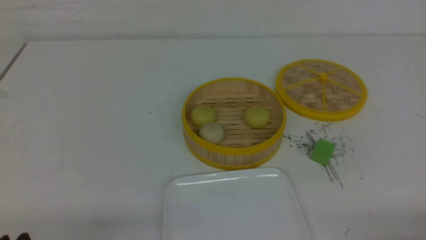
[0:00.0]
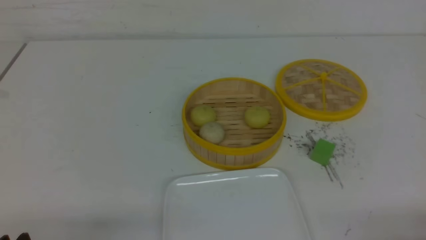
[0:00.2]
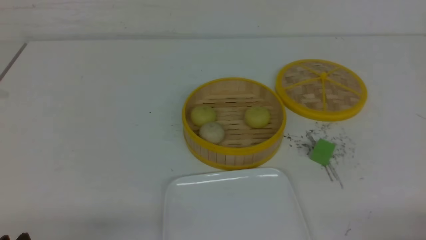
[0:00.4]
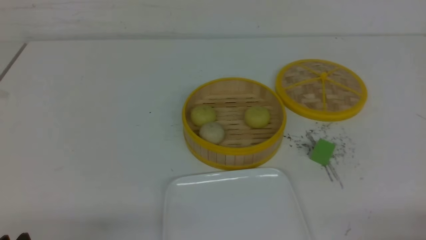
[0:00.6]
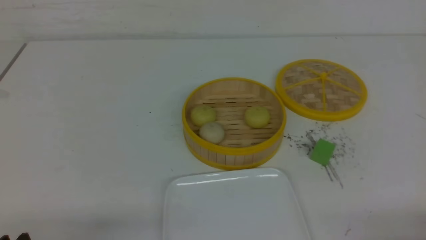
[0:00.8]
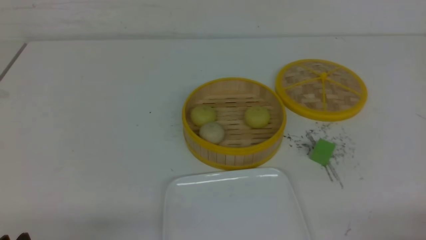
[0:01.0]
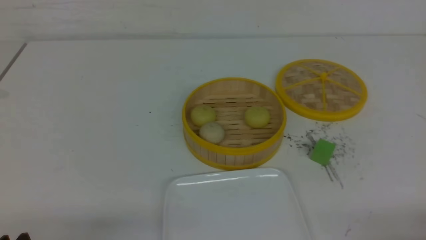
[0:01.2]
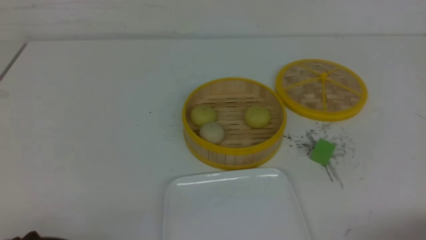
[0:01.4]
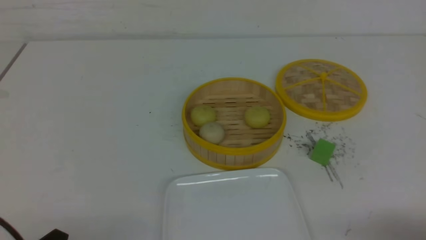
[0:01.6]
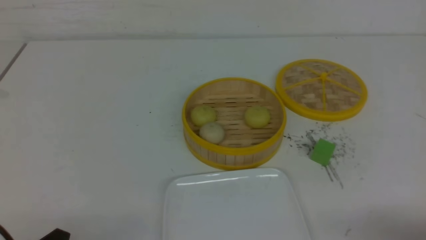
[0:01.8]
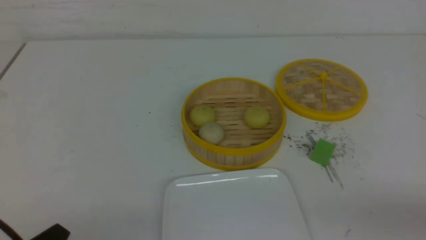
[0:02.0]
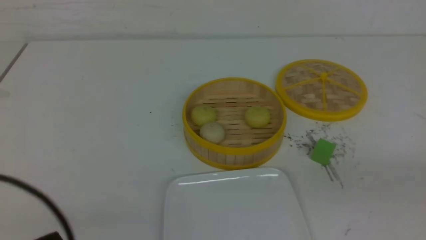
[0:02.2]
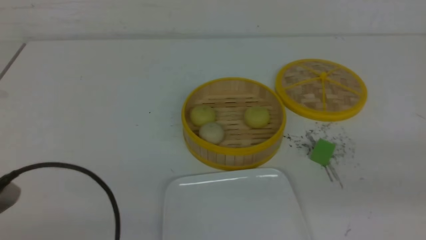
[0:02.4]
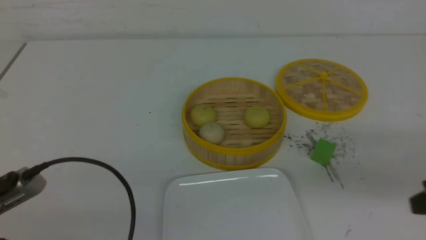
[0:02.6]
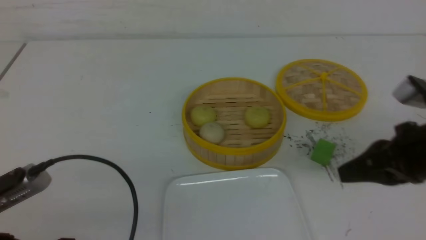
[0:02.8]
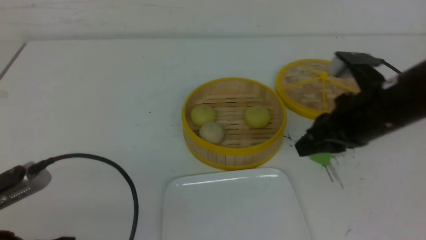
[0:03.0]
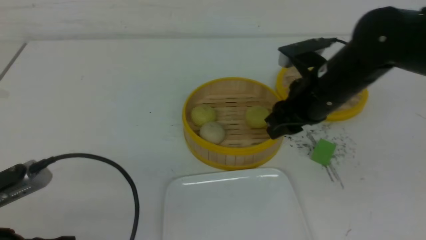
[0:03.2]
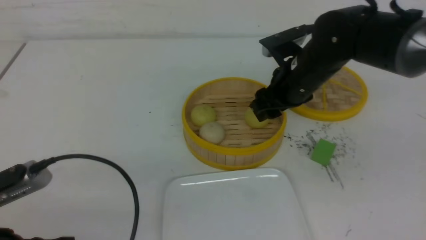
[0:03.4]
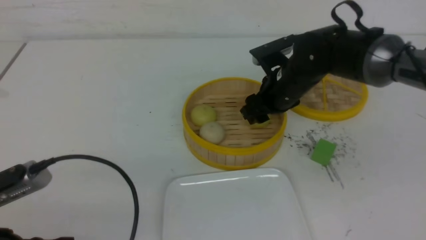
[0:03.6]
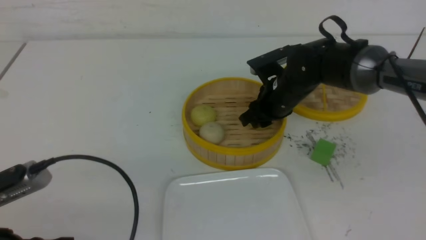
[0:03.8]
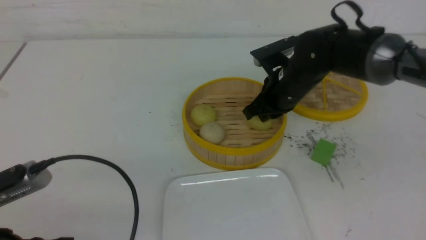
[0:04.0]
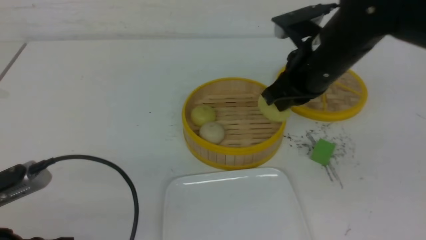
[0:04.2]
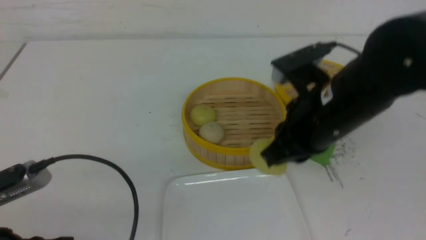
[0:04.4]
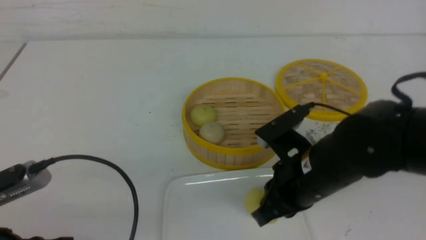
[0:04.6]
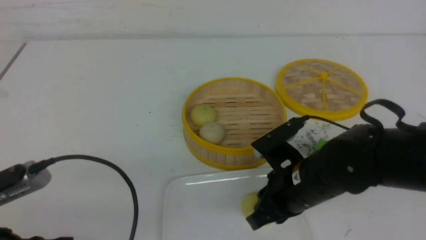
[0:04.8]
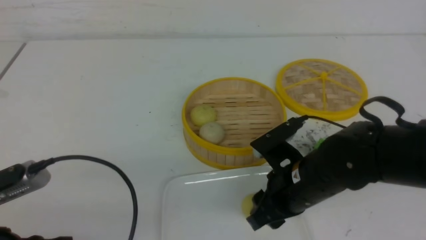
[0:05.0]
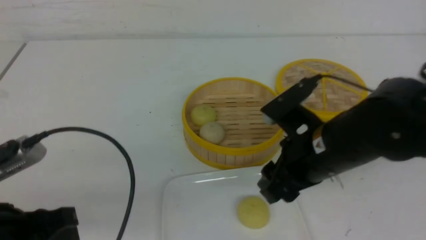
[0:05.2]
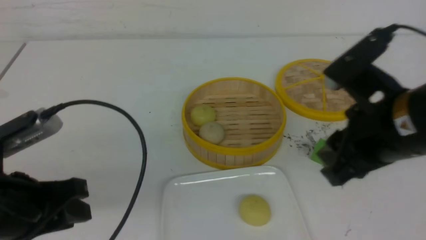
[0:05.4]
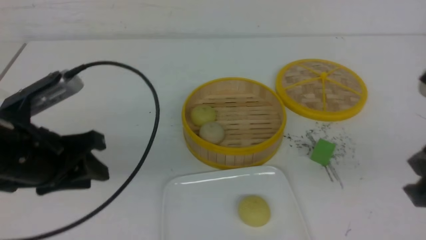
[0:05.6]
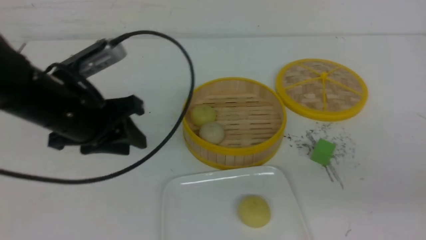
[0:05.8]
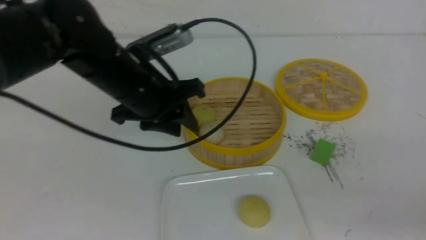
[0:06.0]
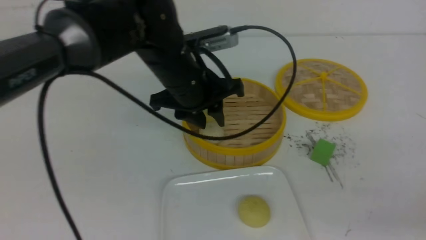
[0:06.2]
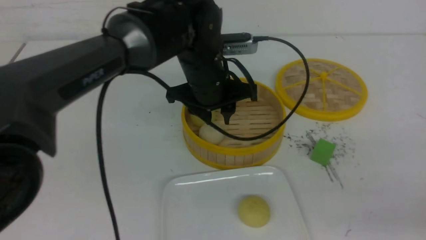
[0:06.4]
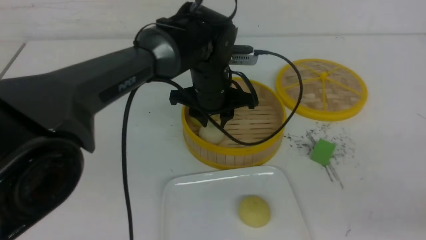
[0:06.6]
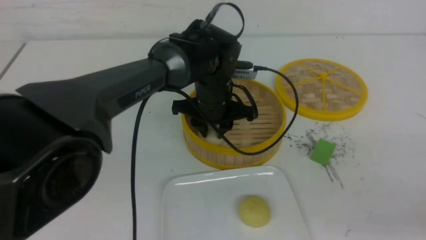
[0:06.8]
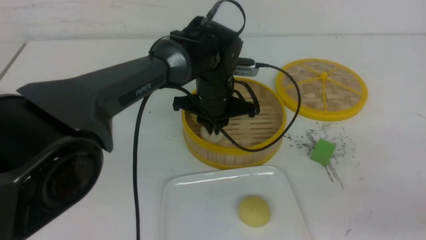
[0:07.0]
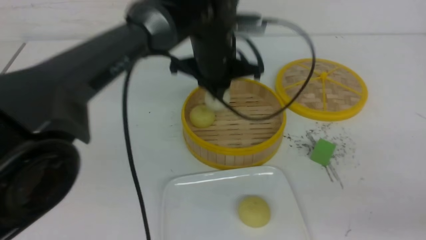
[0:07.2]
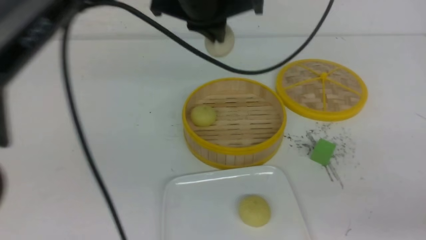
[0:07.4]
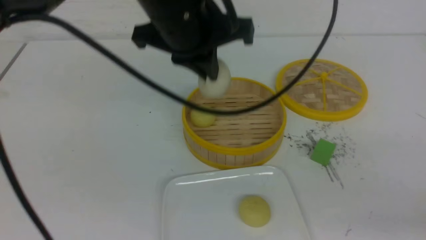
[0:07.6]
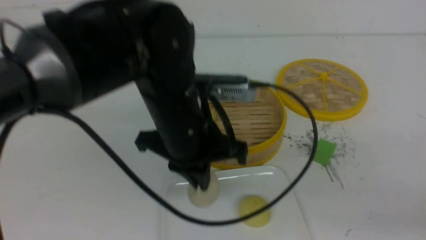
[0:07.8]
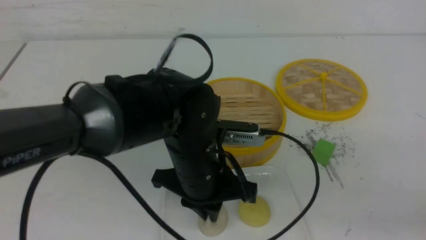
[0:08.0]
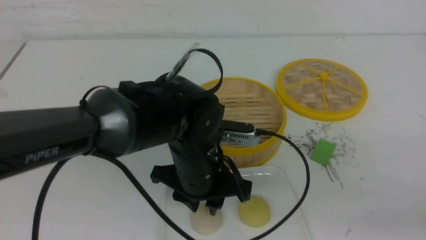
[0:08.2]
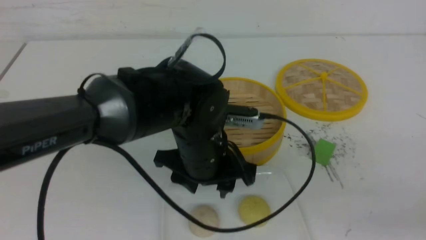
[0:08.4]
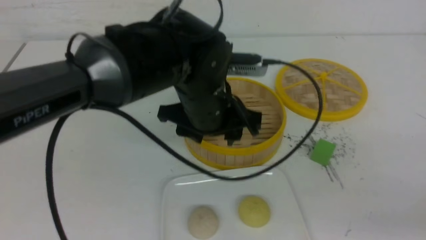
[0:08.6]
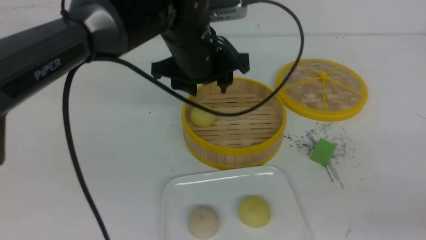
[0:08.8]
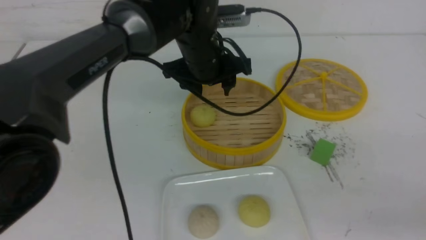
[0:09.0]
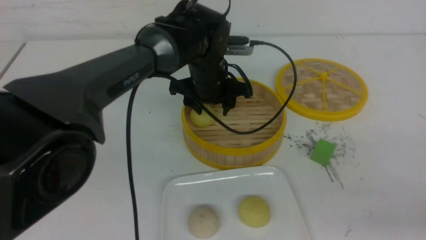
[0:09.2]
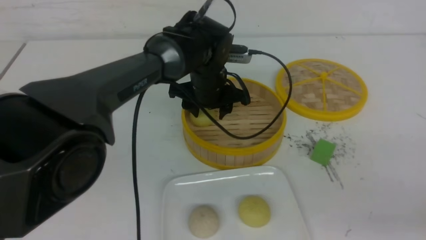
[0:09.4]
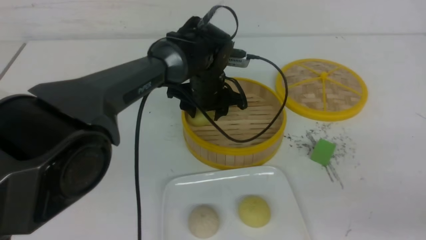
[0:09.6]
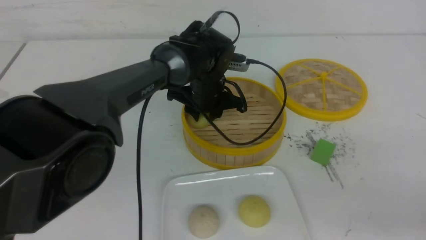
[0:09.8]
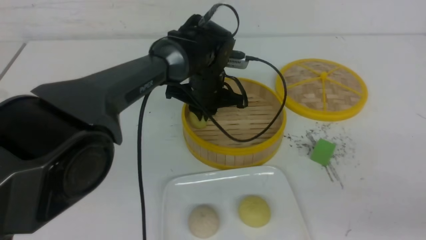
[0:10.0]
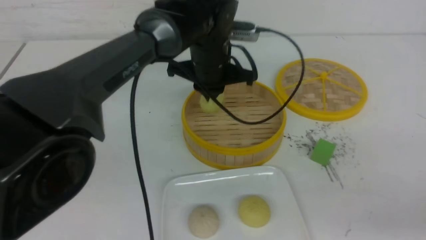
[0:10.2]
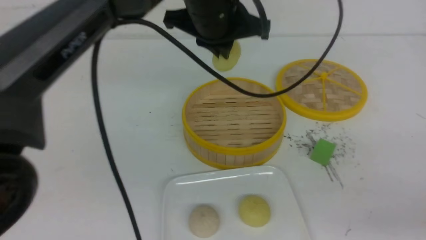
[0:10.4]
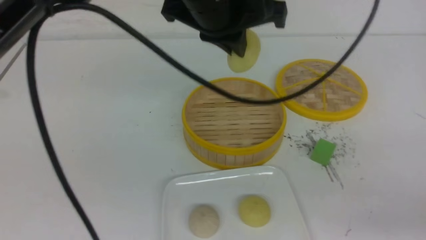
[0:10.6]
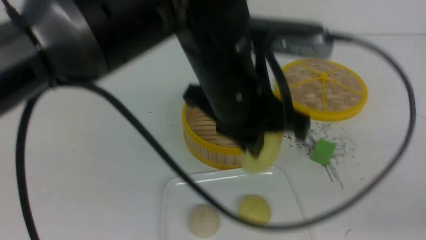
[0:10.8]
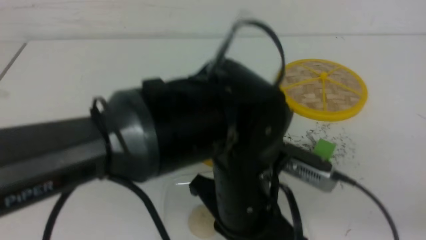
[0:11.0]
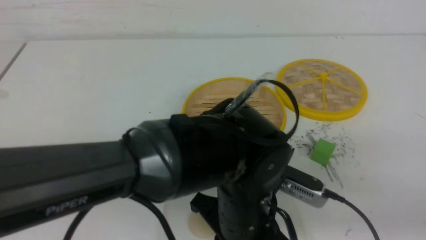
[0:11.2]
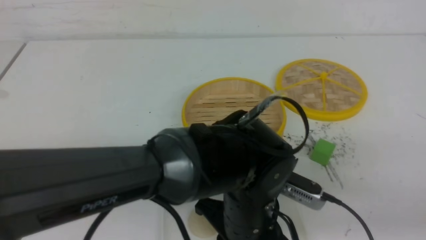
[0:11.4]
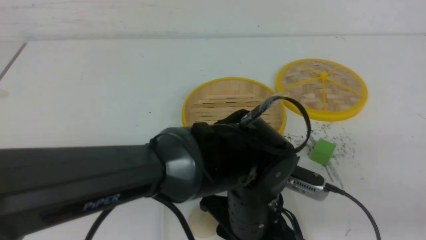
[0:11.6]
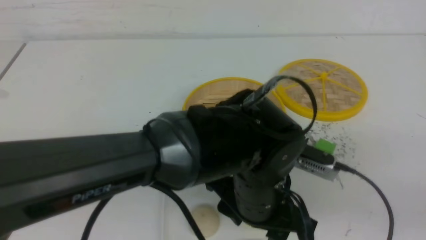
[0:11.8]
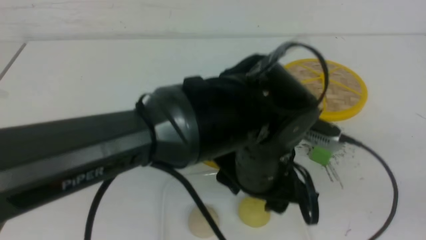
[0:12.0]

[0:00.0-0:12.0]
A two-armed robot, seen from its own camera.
Step, 0:00.0 to 0:03.8: use the right arm to grab the steamed stuffed bun that is closest to it.
Step, 0:04.0 to 0:05.0: use the right arm to put the steamed stuffed bun into the plate.
Step, 0:05.2 to 0:07.0: use the left arm to grab the steamed stuffed bun that is closest to it.
Step, 0:07.2 to 0:08.2: use the left arm to put the steamed stuffed bun into the plate.
Step, 0:08.4 to 0:09.6: use the left arm to grab the steamed stuffed bun that is closest to it.
Step, 0:09.8 to 0:11.8: use the left arm to put the steamed stuffed bun into the plate.
0:01.6 to 0:03.0: The left gripper heads upward, covering some 5 cm, and closes up; the right gripper heads forward, to the left and upward, covering some 30 cm, and closes, then reopens.
0:03.0 to 0:04.4: The right gripper goes some 5 cm to the left, moves roughly 10 cm forward and comes back, and closes its fingers.
0:04.4 to 0:06.0: The left gripper is displaced forward and to the right by about 25 cm, and opens its fingers. The right gripper is displaced backward and to the right by approximately 25 cm, and opens, then closes again.
0:06.0 to 0:07.6: The left gripper shifts some 10 cm to the right and upward, and closes its fingers.
0:07.6 to 0:09.0: The left gripper moves forward and downward, approximately 10 cm, and opens up.
0:09.0 to 0:10.4: The left gripper travels upward by about 10 cm, and closes its fingers.
0:10.4 to 0:12.0: The right gripper goes some 10 cm upward, backward and to the right. The left gripper shifts about 15 cm backward and downward, and opens its fingers.

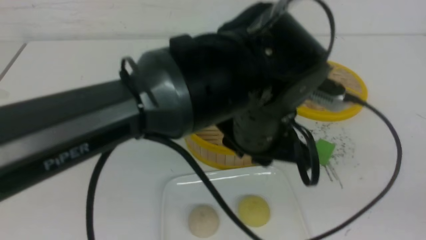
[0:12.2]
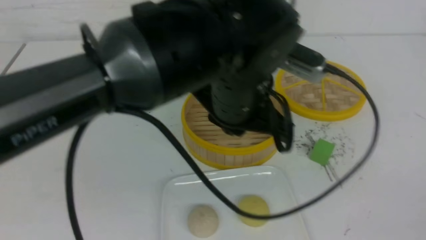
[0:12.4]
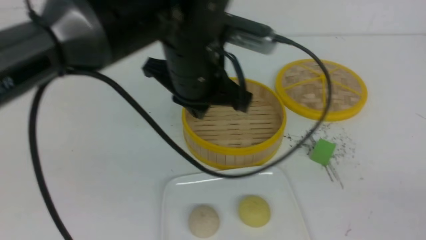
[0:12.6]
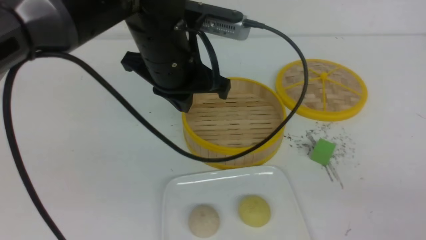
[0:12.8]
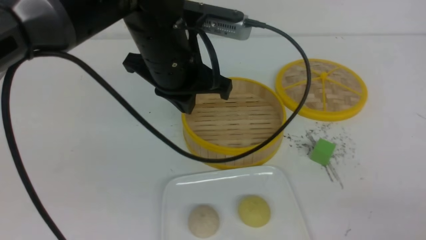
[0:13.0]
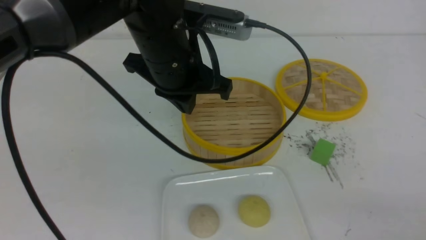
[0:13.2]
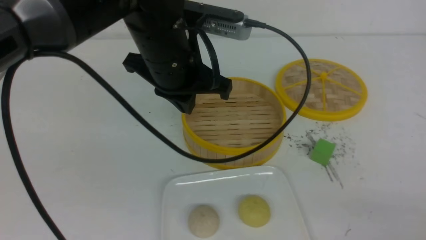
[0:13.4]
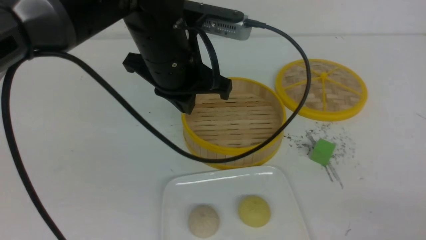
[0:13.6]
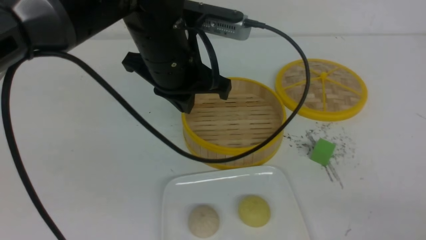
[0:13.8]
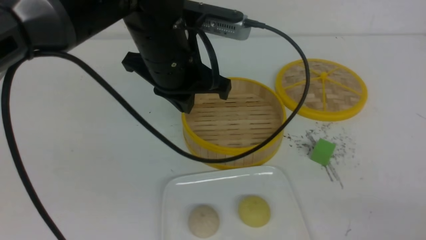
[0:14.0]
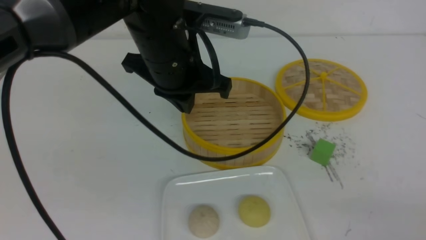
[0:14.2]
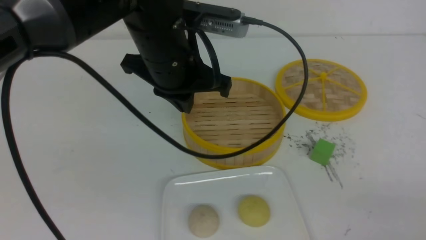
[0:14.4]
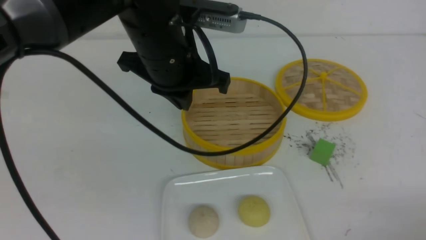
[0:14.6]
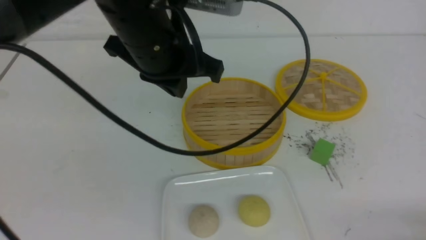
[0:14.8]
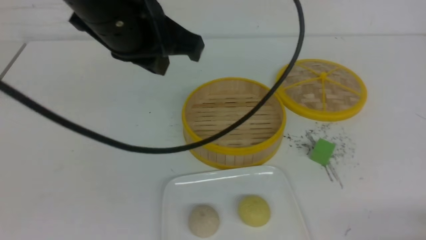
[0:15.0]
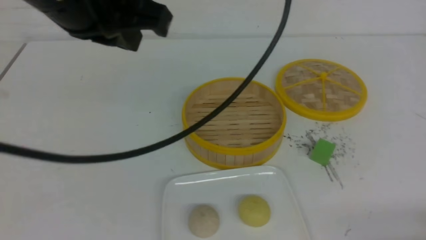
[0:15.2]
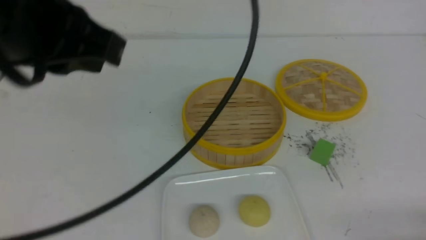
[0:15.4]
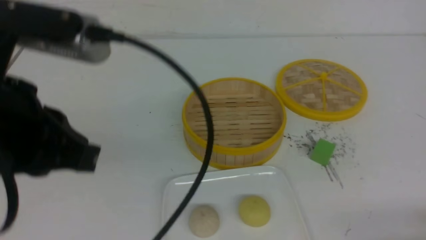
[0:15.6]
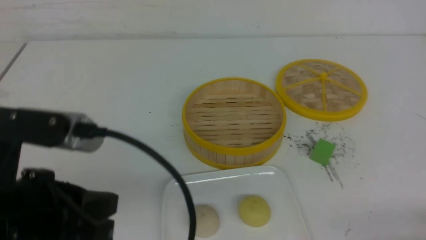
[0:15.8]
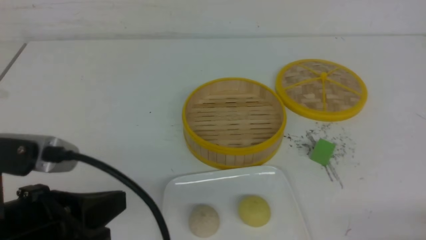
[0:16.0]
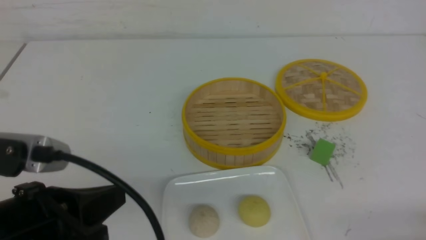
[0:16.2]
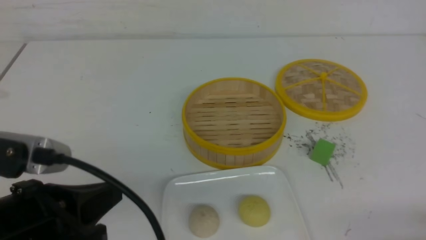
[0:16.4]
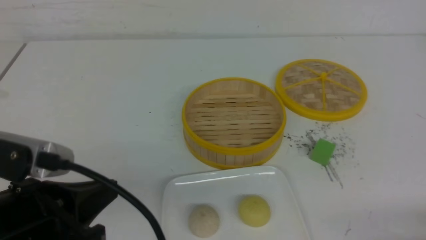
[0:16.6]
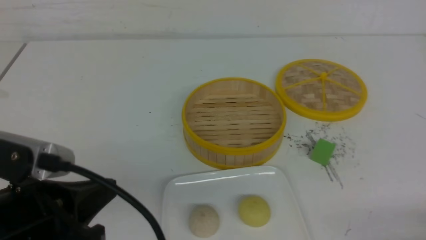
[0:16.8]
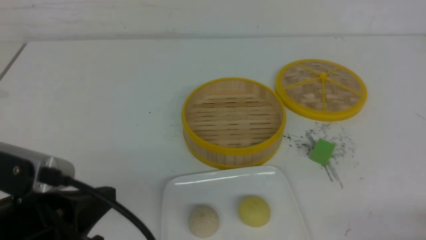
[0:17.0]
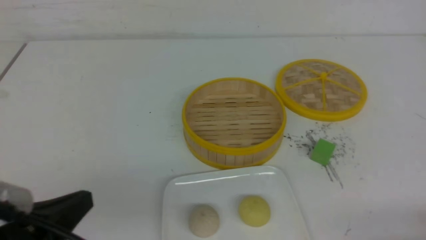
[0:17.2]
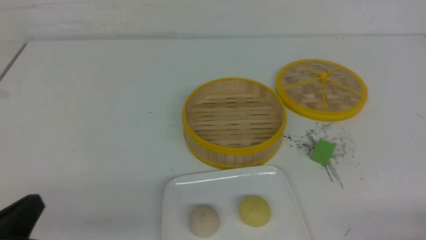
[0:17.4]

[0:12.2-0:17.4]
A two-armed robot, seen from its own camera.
0:12.2 to 0:14.0: The right gripper travels downward and to the left by some 10 cm. Meanwhile the left gripper goes approximately 10 cm to the left and forward, and closes its fingers.
0:14.0 to 0:15.6: The left gripper moves backward and to the left, roughly 20 cm; the right gripper is displaced downward by about 10 cm.
0:15.6 to 0:17.4: The left gripper shifts some 20 cm downward, to the left and backward.
